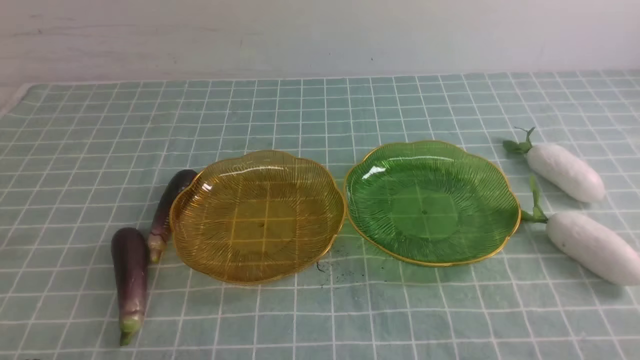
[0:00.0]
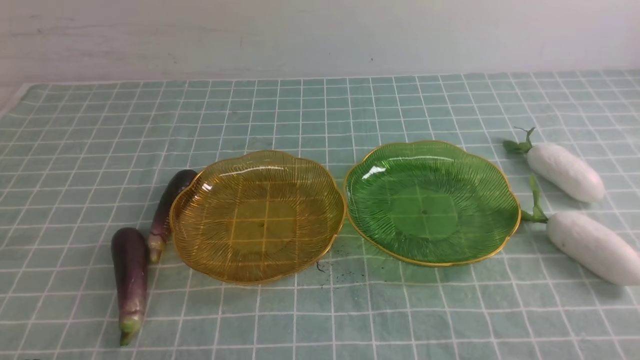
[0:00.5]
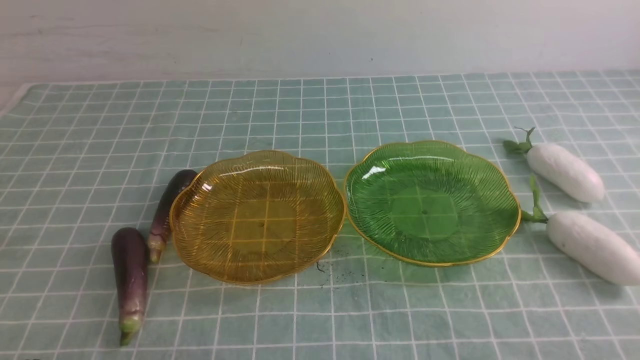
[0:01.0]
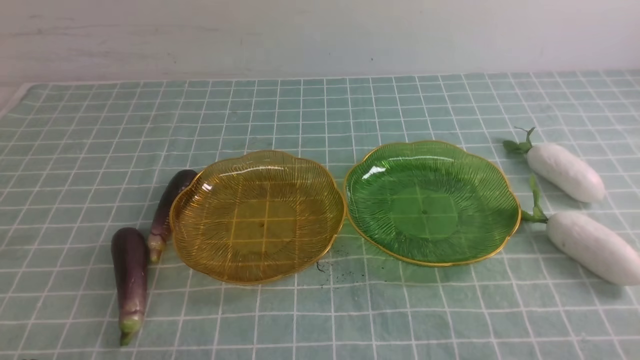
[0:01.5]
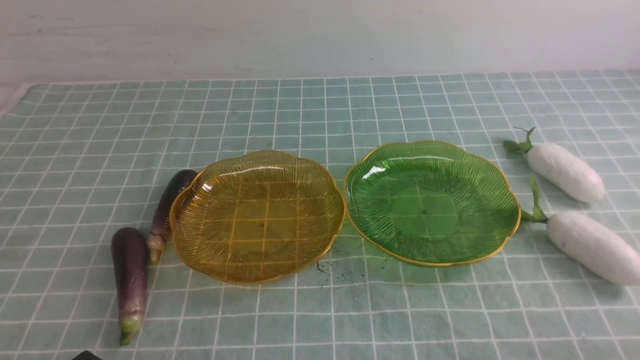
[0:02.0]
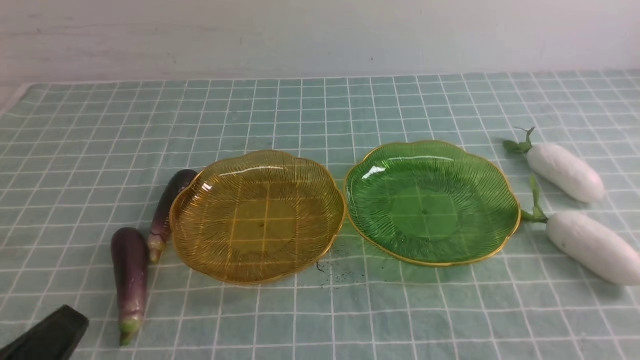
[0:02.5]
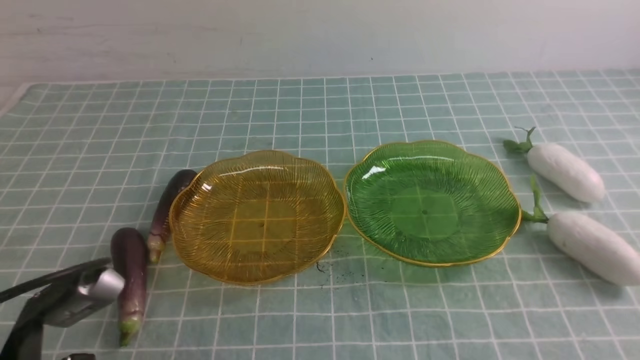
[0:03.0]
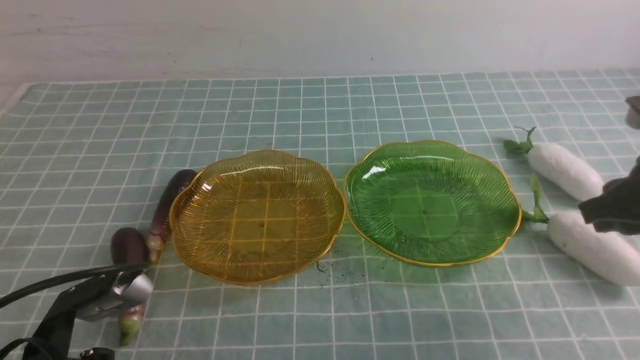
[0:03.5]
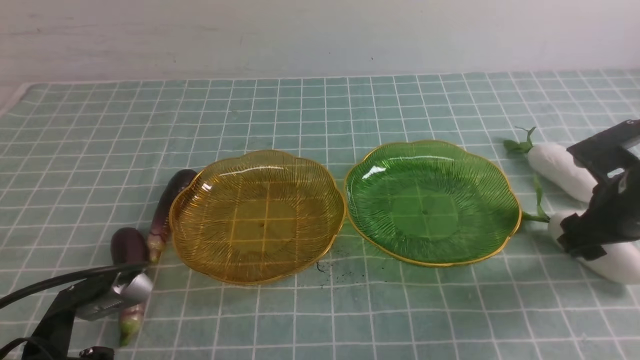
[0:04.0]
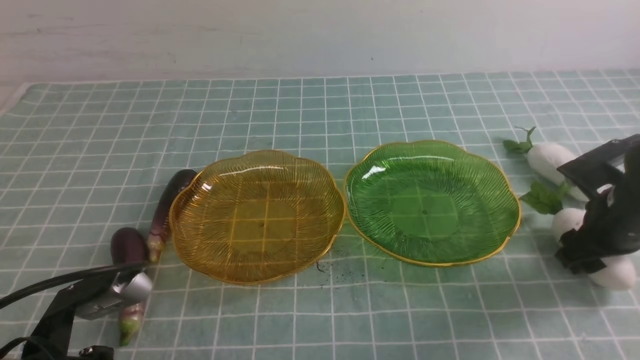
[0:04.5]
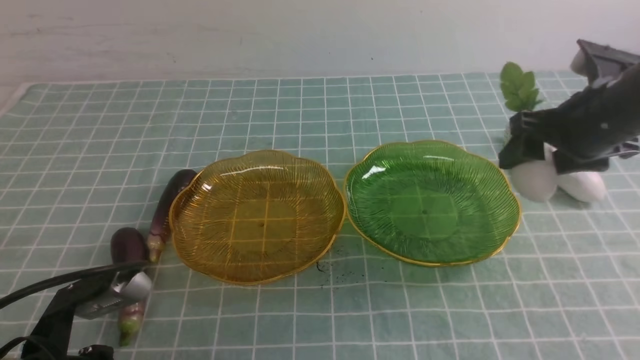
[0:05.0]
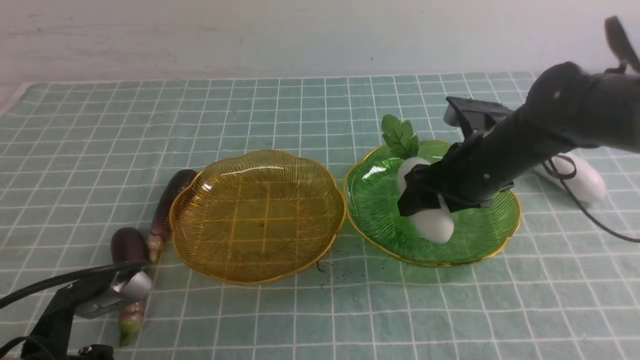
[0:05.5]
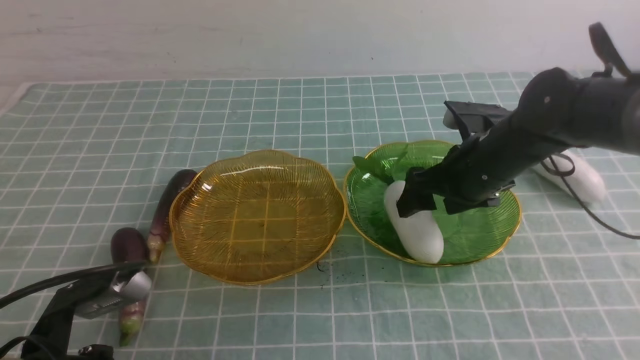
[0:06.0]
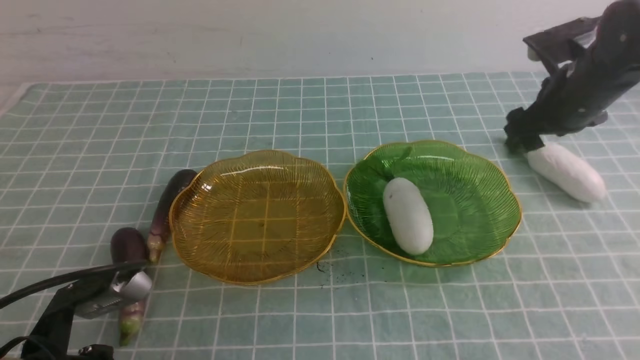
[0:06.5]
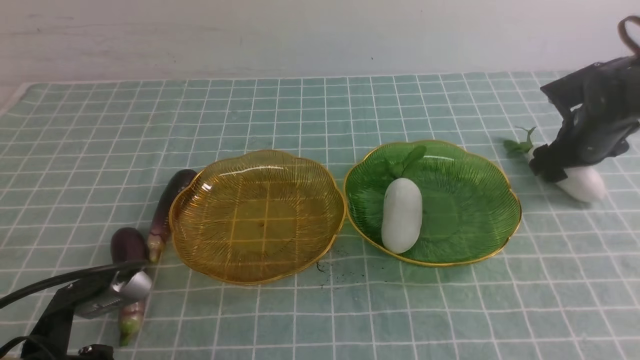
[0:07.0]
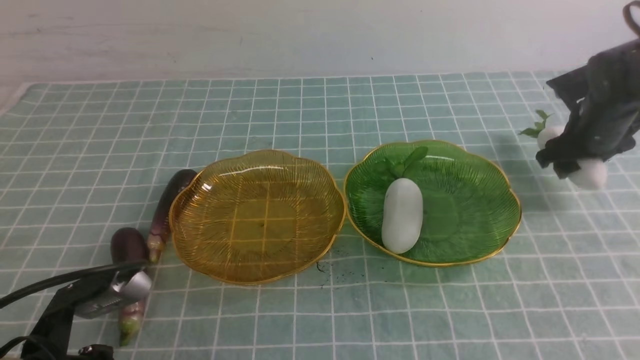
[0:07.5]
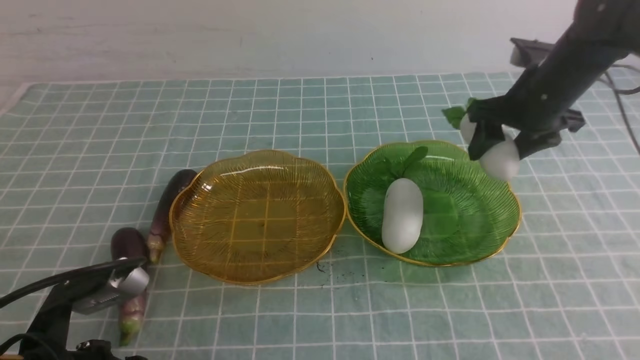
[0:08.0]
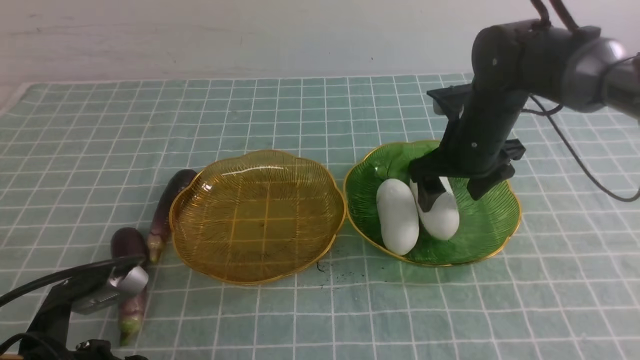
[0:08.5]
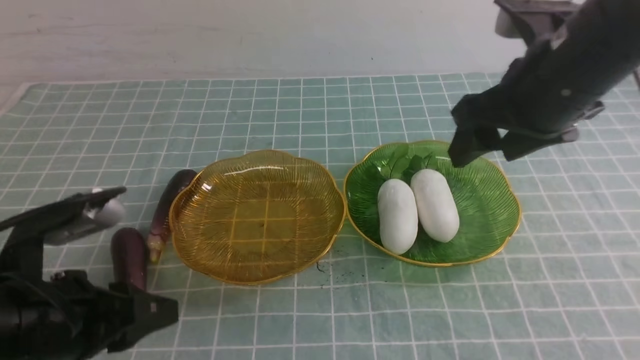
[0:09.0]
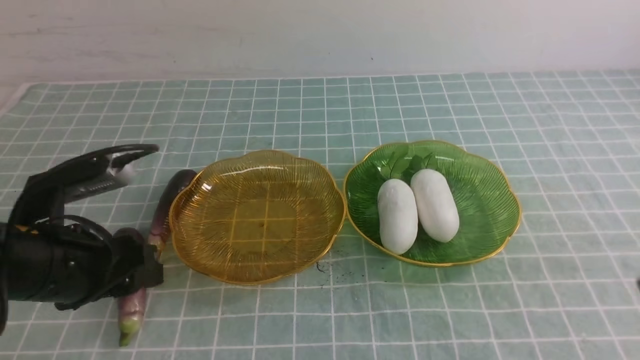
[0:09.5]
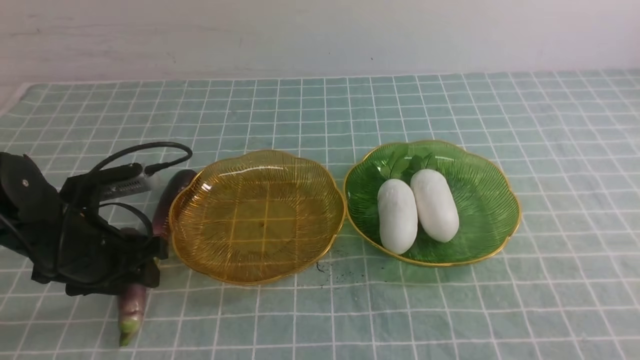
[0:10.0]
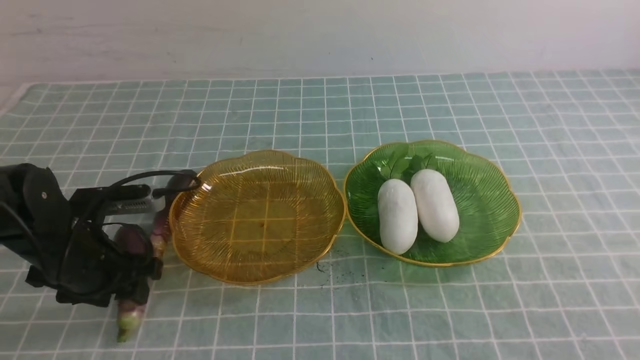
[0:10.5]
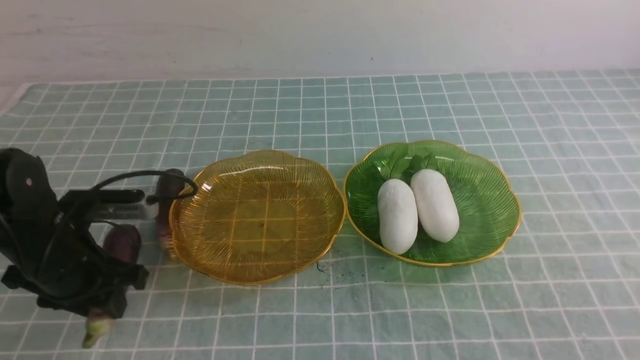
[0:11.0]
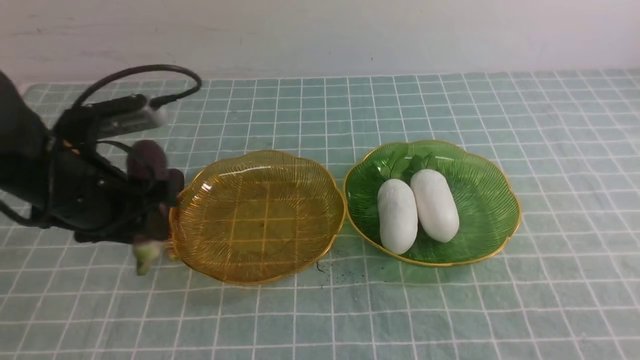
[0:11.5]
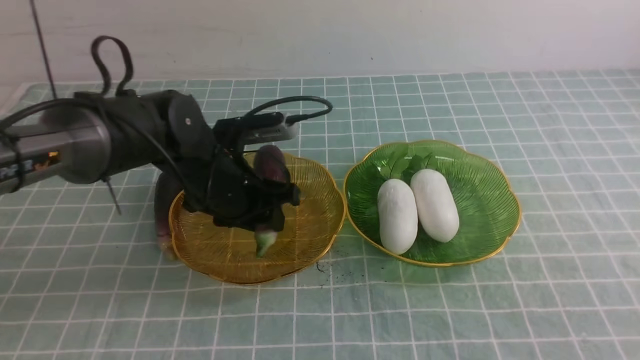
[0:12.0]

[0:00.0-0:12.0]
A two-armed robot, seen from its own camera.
Step, 0:00.0 to 0:08.5: use the right arm to grab a radish and put it into the right plate.
0:02.0 to 0:04.0: The right gripper heads forward, covering about 25 cm, and opens up; the left gripper shifts roughly 5 cm forward.
0:04.0 to 0:06.0: The right gripper moves to the left and forward, approximately 15 cm.
0:06.0 to 0:08.0: The right gripper shifts some 10 cm to the right and forward.
0:08.0 to 0:10.0: The left gripper goes approximately 15 cm forward, and opens; the right gripper moves backward, roughly 40 cm.
0:10.0 to 0:12.0: The left gripper heads to the right and forward, covering about 15 cm.

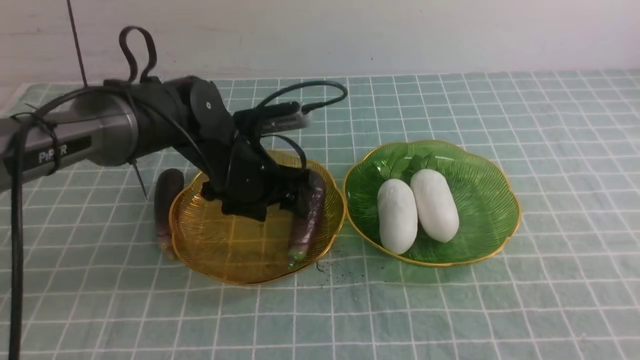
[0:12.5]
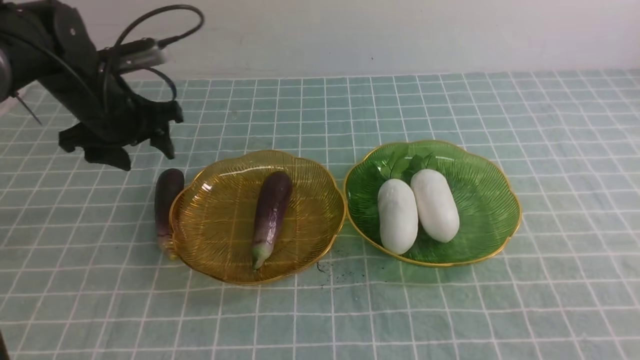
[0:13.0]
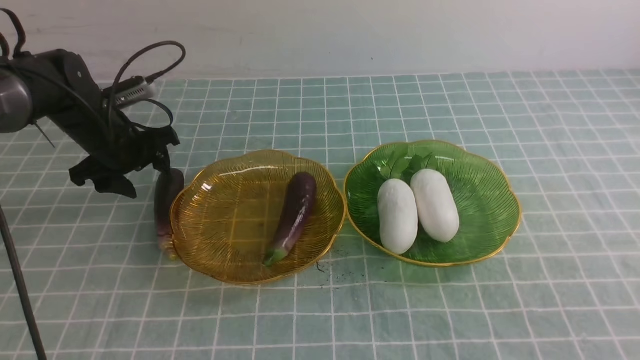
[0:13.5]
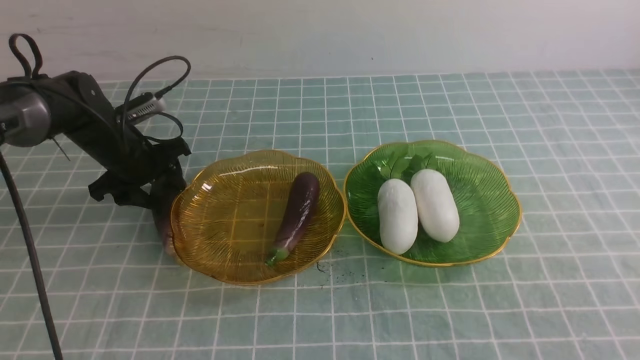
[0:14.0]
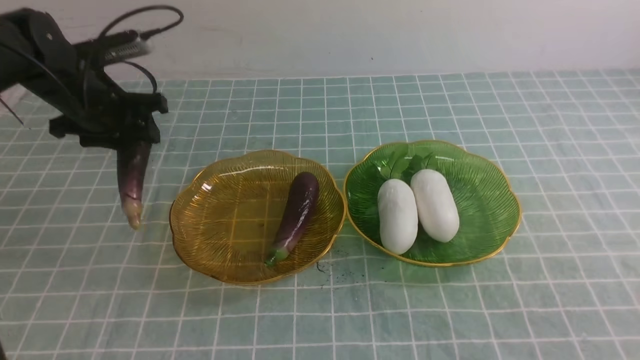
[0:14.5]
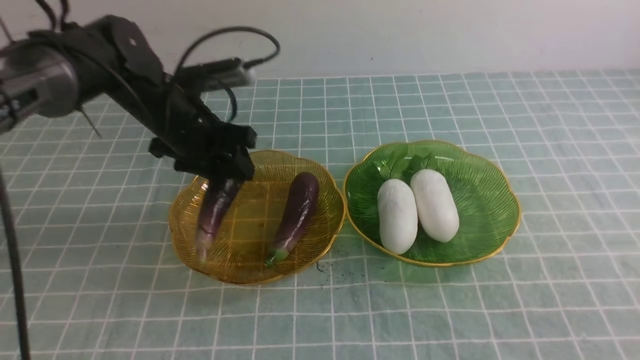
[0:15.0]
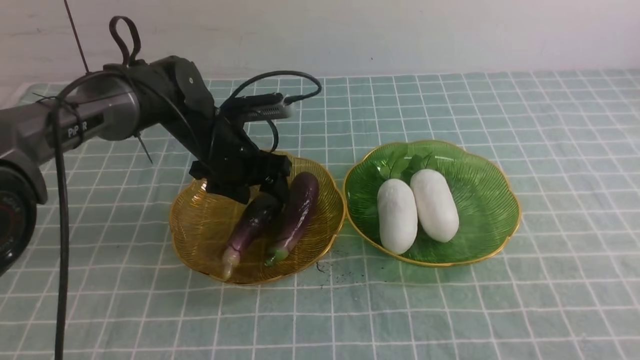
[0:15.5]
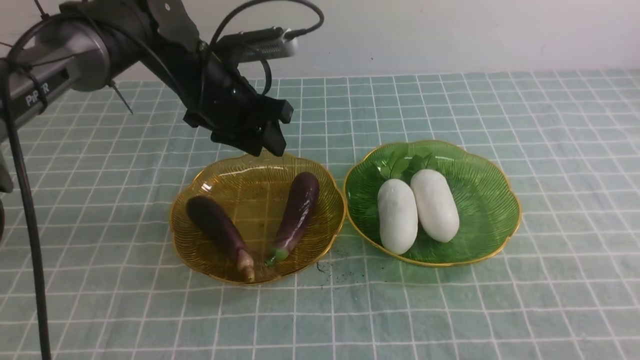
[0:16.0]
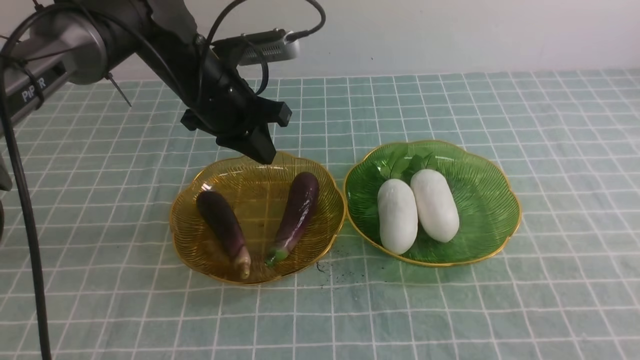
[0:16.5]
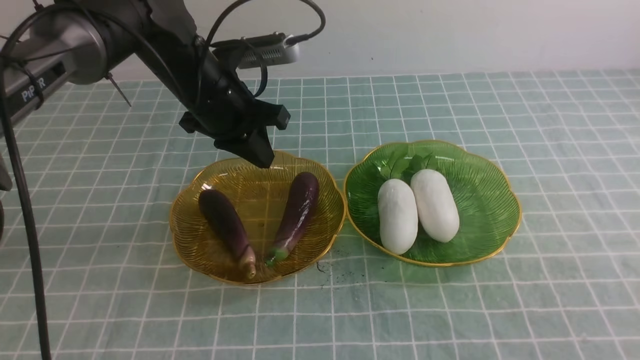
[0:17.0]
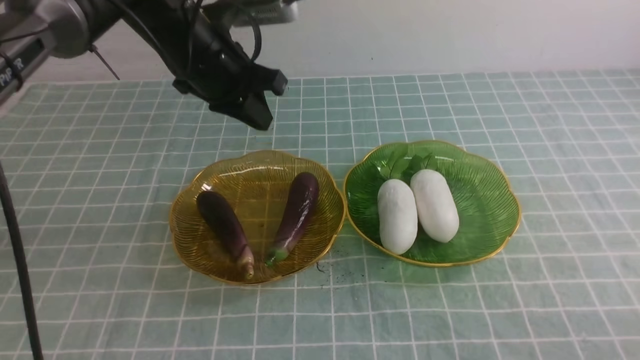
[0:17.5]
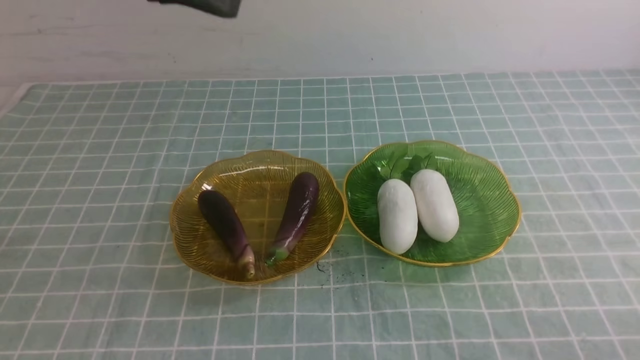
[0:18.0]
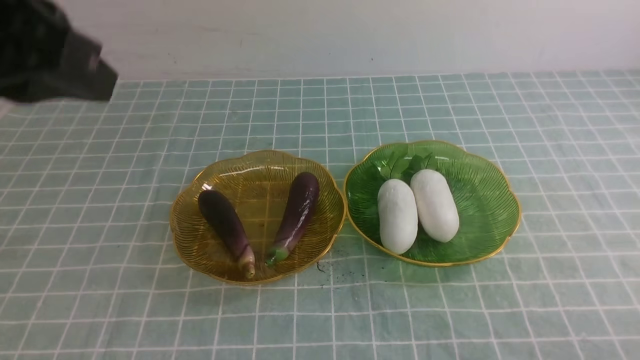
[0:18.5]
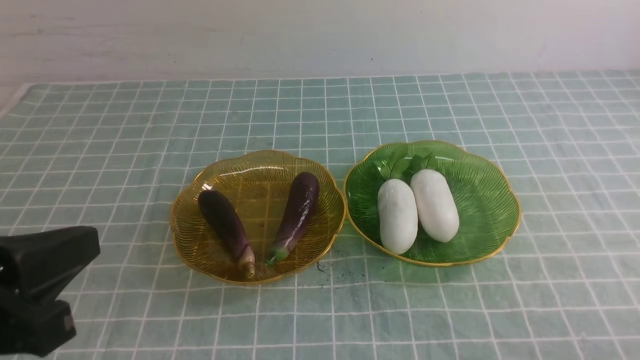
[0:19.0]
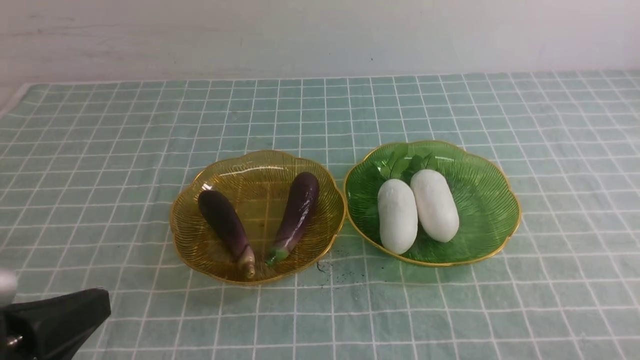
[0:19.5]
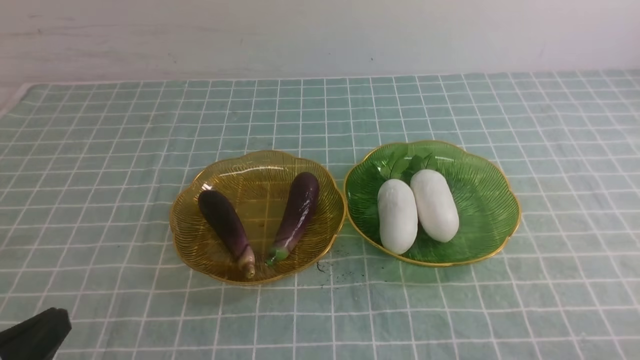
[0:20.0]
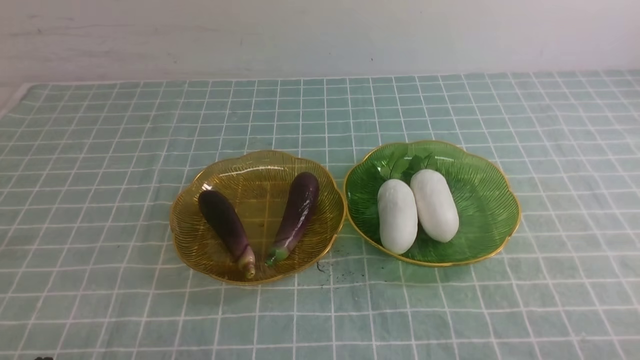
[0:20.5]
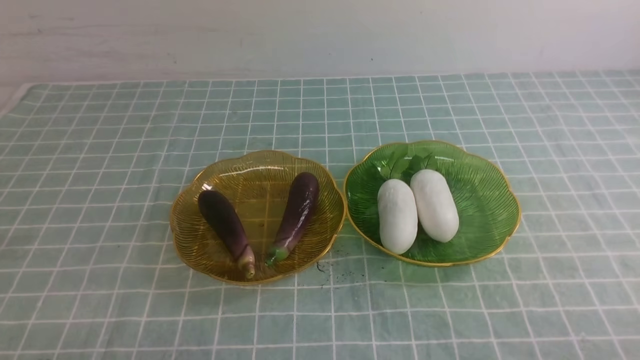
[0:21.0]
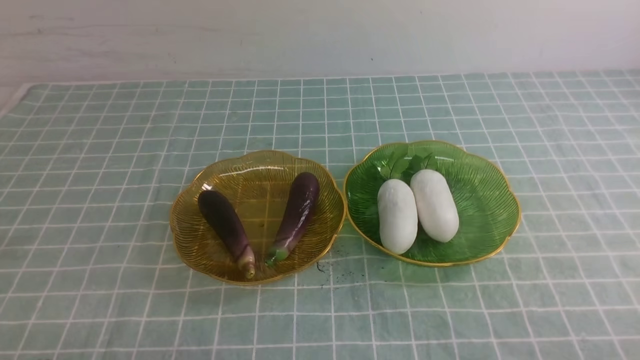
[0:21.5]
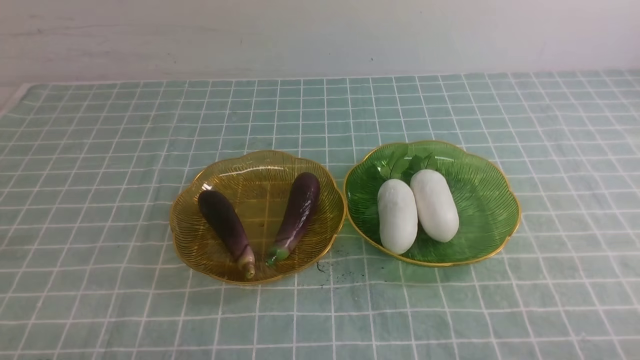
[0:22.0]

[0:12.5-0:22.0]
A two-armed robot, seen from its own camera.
Step, 0:12.5 to 0:15.5: use the left arm to grab an eggplant and put it into the left plate.
0:12.5 to 0:14.5: The left gripper goes some 15 cm to the left and upward.
0:14.5 to 0:16.5: The left gripper shifts approximately 10 cm to the right, and closes its fingers. The right gripper closes its fingers.
0:16.5 to 0:18.0: The right gripper goes approximately 10 cm downward, while the left gripper heads upward and backward, covering roughly 20 cm.
0:18.0 to 0:20.0: The left gripper goes approximately 35 cm backward and downward.
0:20.0 to 0:22.0: The left gripper is displaced downward by approximately 5 cm.
